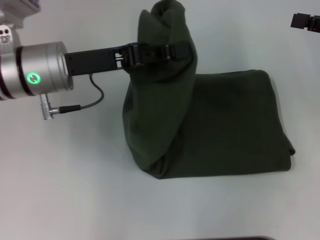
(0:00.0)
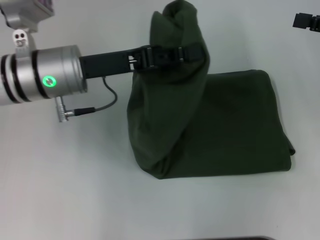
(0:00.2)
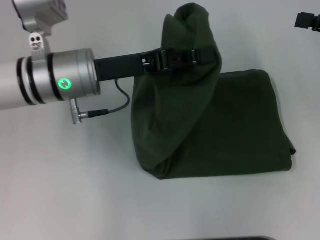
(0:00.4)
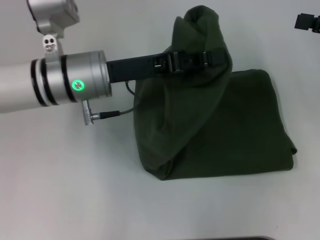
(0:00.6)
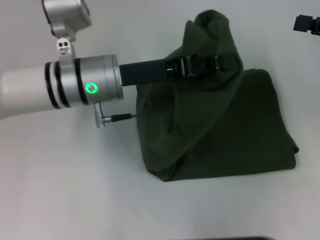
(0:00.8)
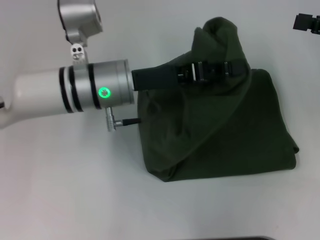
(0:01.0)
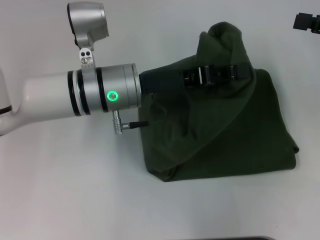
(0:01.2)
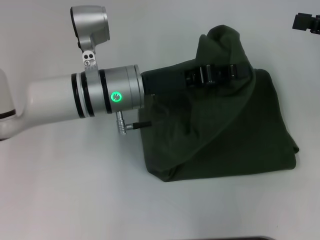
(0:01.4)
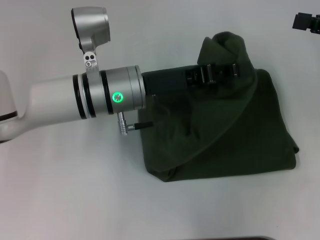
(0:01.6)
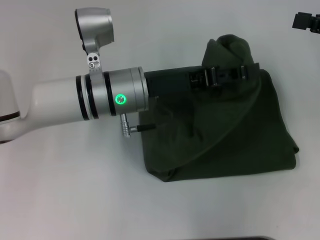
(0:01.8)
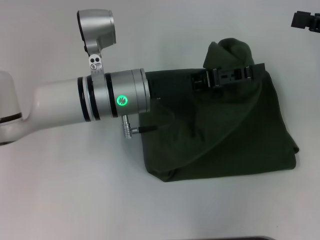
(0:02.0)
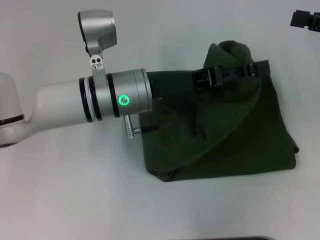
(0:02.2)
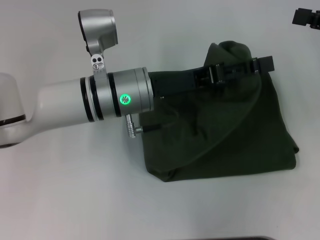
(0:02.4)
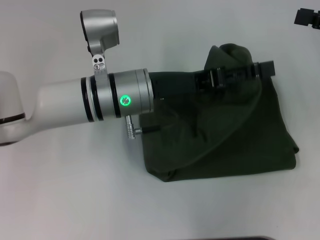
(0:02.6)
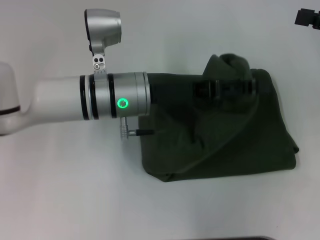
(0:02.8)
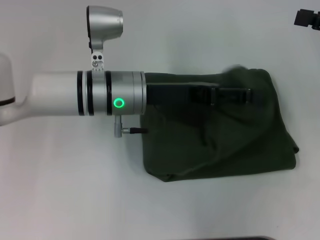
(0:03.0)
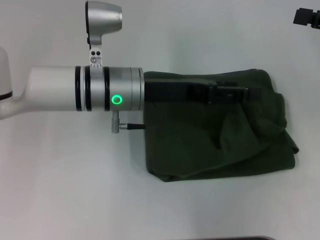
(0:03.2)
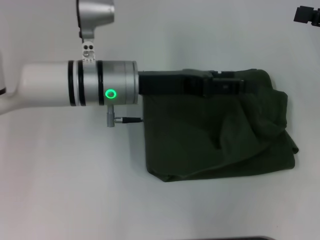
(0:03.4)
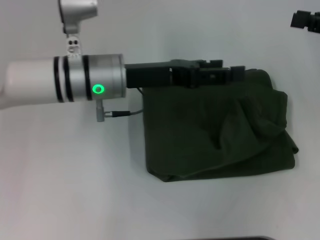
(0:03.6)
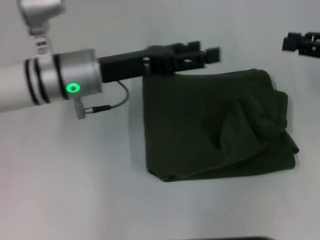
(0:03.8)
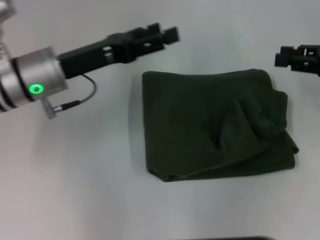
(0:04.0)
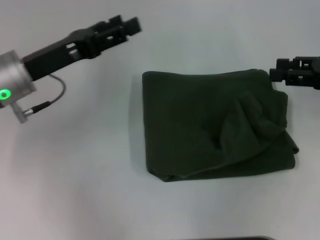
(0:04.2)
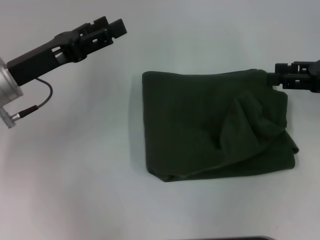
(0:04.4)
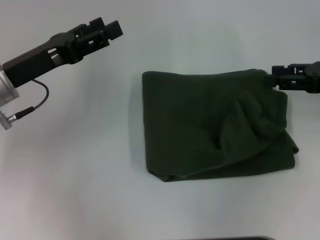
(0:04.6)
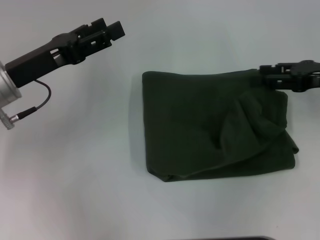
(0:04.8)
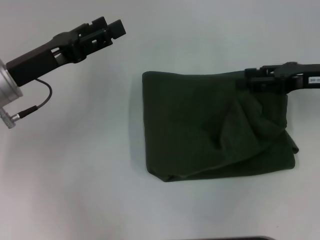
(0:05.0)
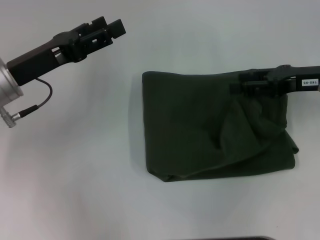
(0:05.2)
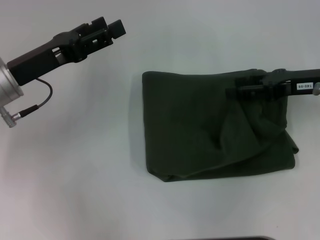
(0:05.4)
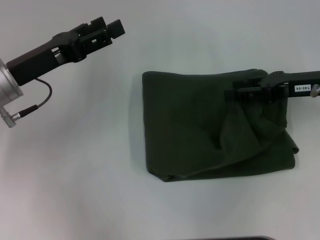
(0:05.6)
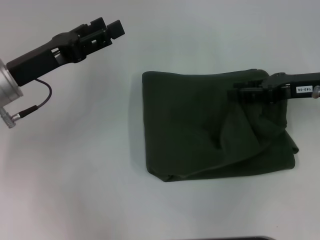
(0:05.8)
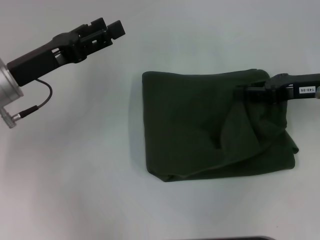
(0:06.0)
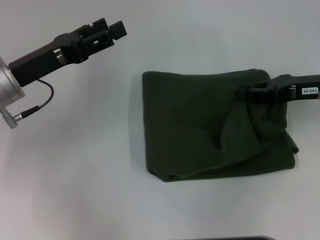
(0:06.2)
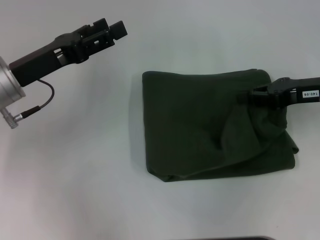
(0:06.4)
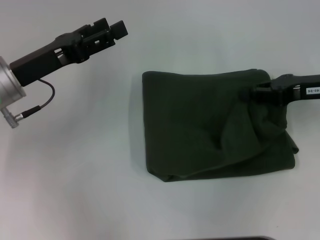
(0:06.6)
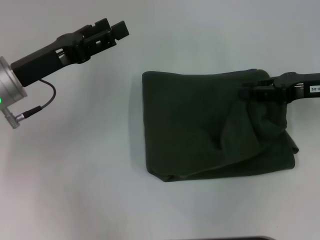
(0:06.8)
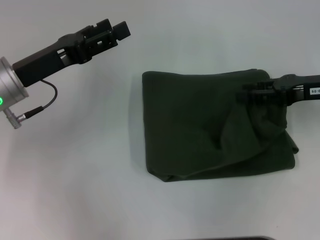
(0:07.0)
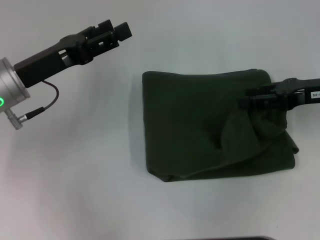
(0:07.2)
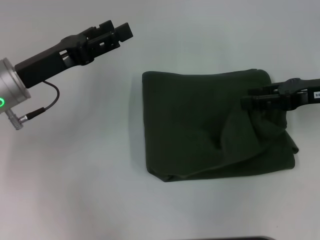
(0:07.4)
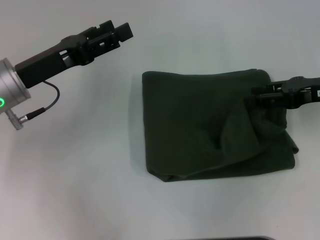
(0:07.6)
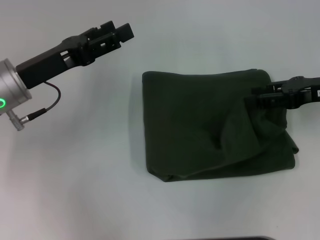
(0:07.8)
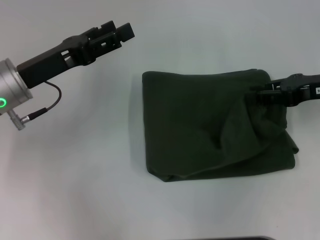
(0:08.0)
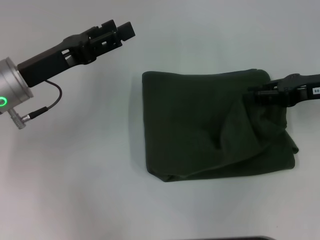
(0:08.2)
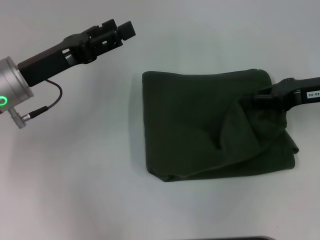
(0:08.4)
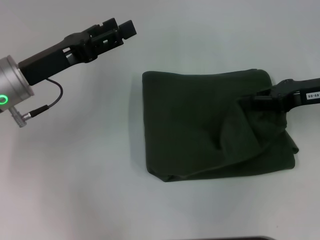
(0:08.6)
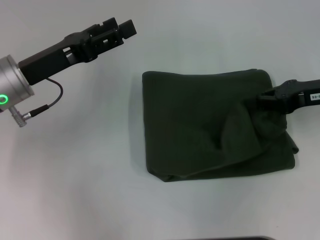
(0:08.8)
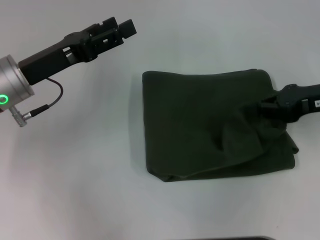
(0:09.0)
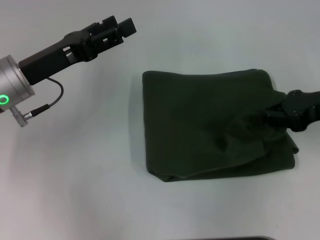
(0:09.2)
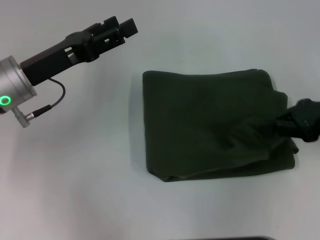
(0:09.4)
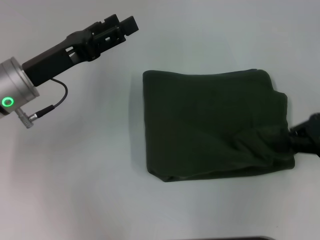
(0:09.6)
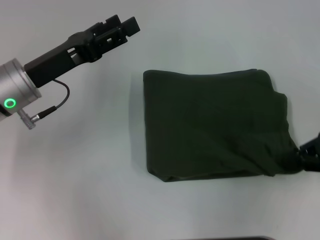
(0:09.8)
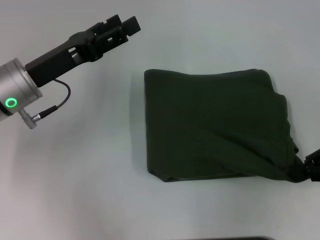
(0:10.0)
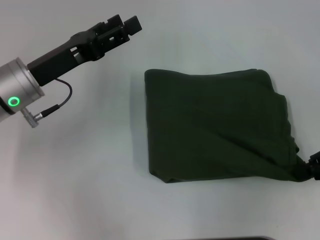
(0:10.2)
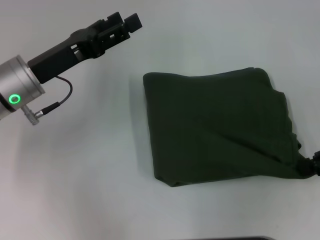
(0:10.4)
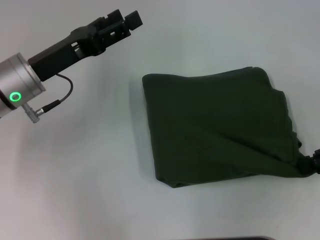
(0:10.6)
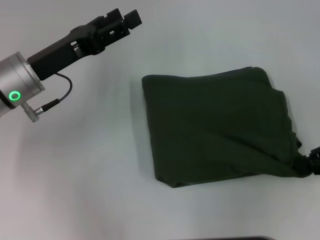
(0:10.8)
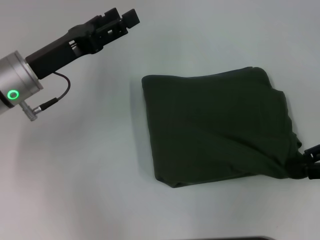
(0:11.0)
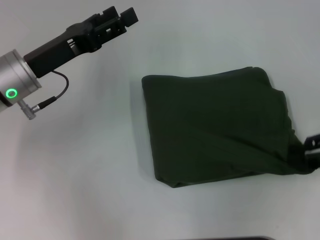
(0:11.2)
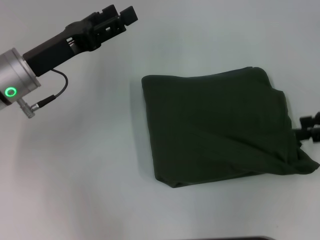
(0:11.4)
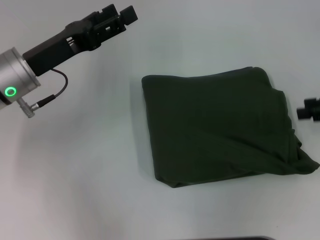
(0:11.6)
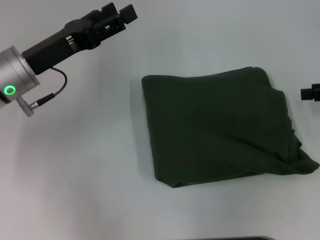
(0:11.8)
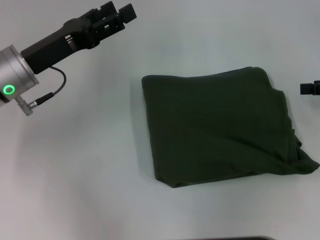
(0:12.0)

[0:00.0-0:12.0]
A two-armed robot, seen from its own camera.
Step, 0:00.0 to 0:03.0: Fold the clothes with your left hand.
0:00.0 to 0:01.6: The left gripper moves to the right, about 10 cm.
0:01.6 to 0:03.0: The left gripper opens up.
0:03.0 to 0:04.4: The left gripper heads to the left, covering some 15 cm.
0:04.4 to 0:06.0: The right gripper travels to the left by some 5 cm.
0:06.0 to 0:07.6: The grippers move only a little.
0:07.6 to 0:09.0: The right gripper closes.
0:09.0 to 0:10.4: The right gripper goes some 10 cm backward and to the right.
0:10.4 to 0:12.0: The right gripper heads forward, covering about 5 cm, and opens its fingers.

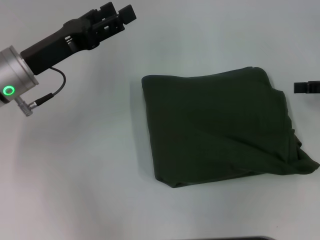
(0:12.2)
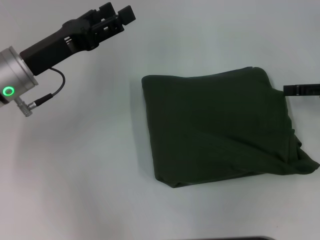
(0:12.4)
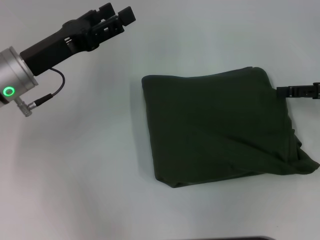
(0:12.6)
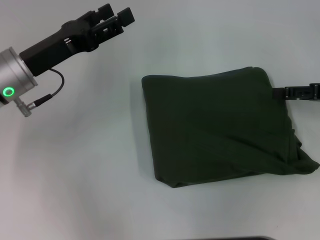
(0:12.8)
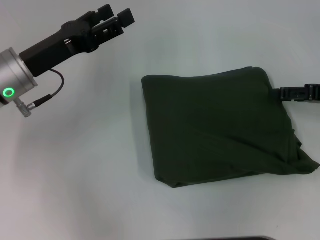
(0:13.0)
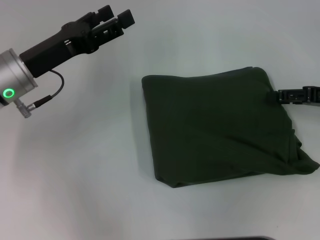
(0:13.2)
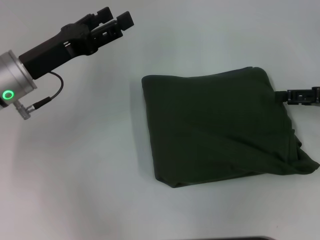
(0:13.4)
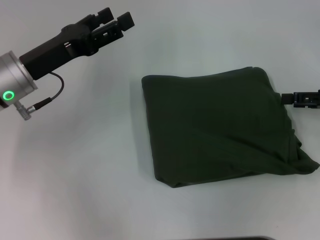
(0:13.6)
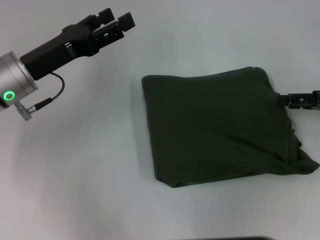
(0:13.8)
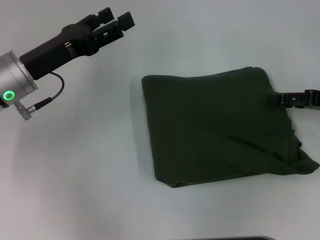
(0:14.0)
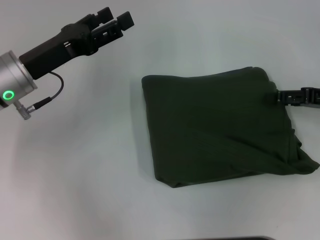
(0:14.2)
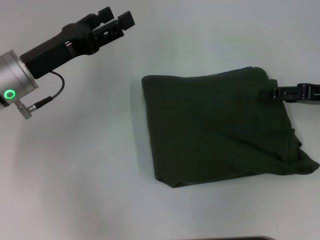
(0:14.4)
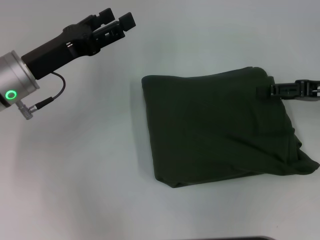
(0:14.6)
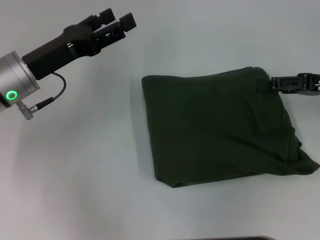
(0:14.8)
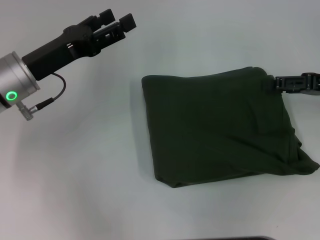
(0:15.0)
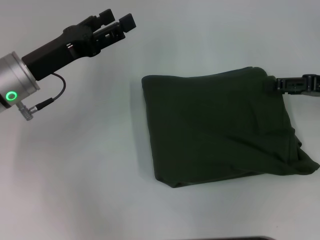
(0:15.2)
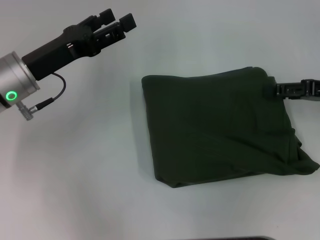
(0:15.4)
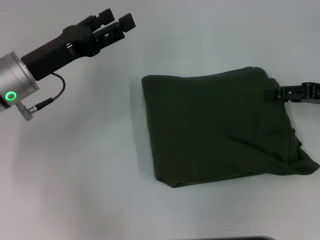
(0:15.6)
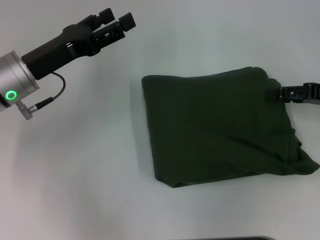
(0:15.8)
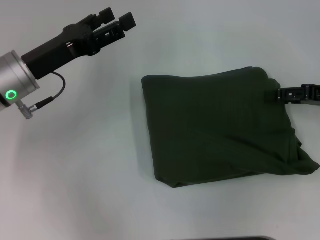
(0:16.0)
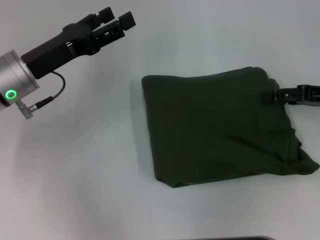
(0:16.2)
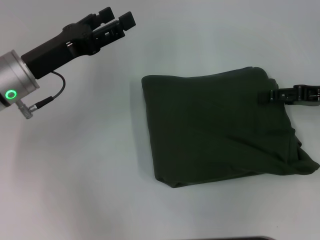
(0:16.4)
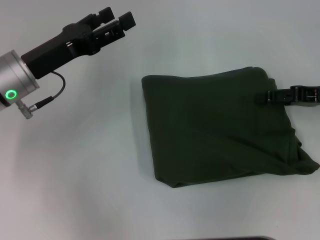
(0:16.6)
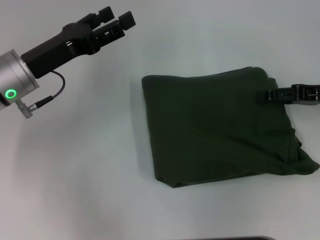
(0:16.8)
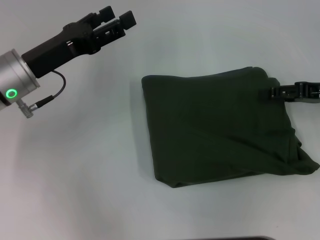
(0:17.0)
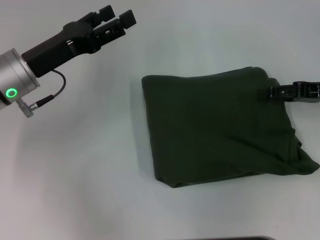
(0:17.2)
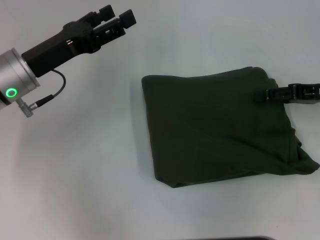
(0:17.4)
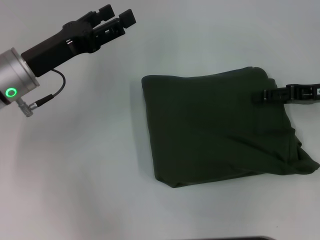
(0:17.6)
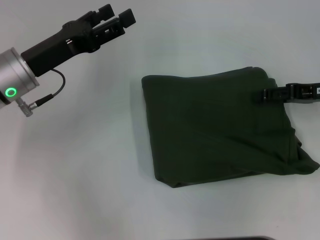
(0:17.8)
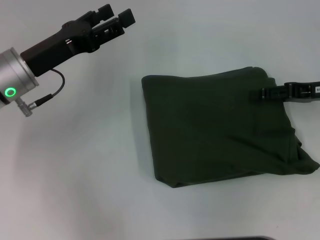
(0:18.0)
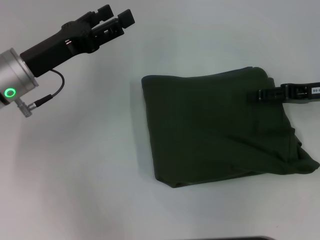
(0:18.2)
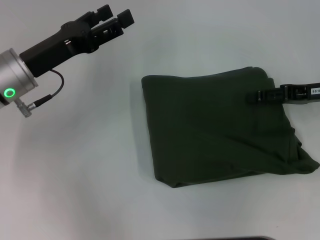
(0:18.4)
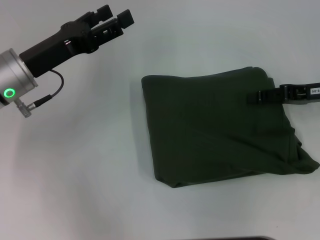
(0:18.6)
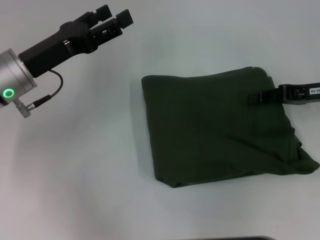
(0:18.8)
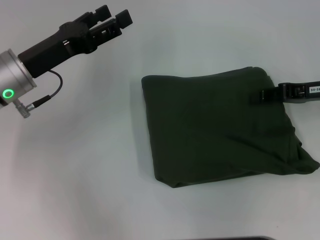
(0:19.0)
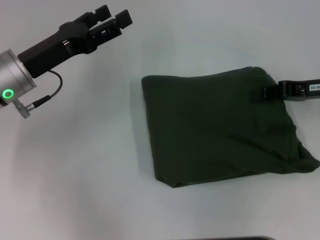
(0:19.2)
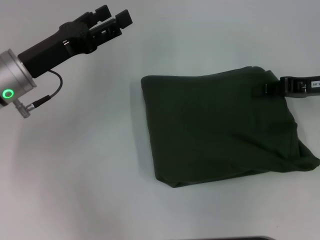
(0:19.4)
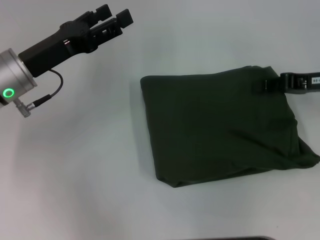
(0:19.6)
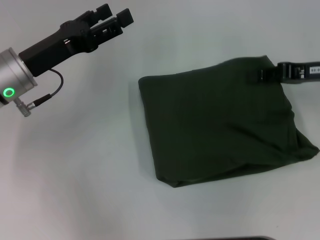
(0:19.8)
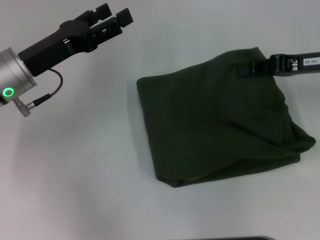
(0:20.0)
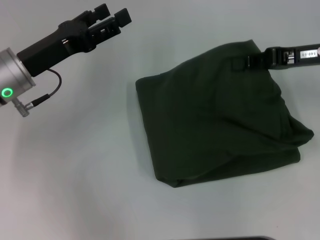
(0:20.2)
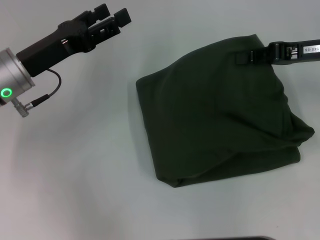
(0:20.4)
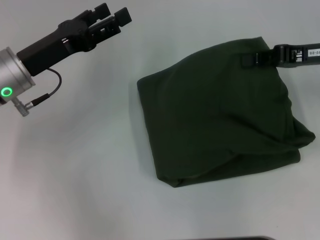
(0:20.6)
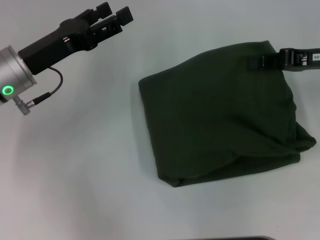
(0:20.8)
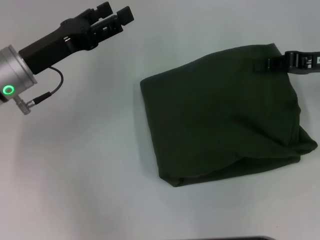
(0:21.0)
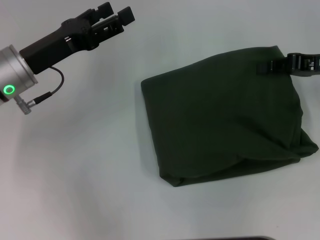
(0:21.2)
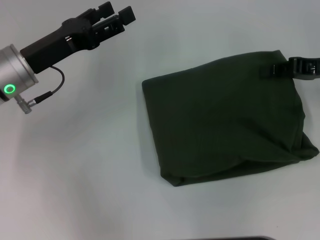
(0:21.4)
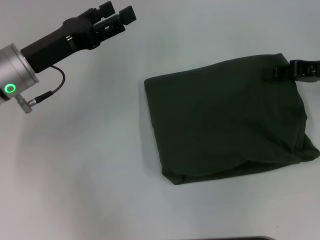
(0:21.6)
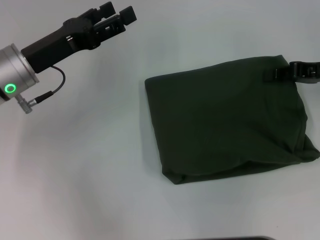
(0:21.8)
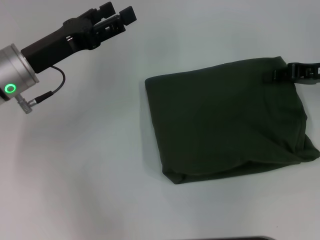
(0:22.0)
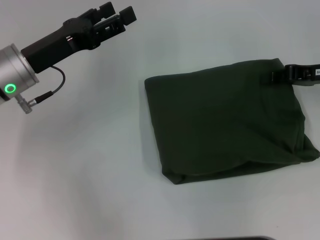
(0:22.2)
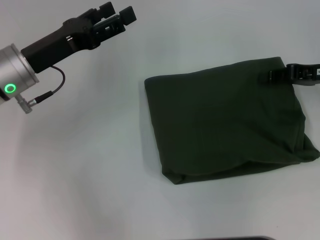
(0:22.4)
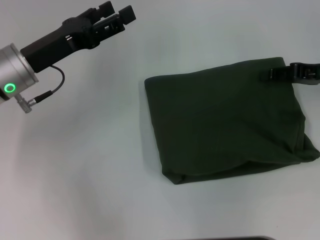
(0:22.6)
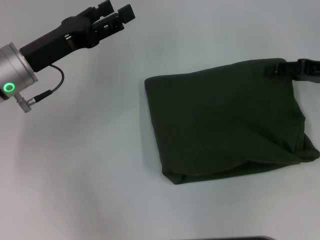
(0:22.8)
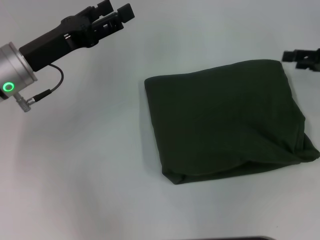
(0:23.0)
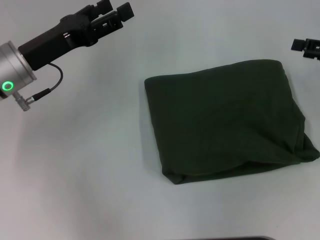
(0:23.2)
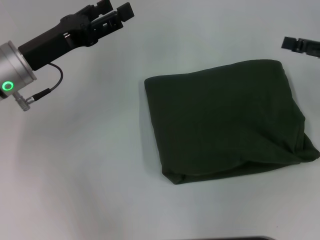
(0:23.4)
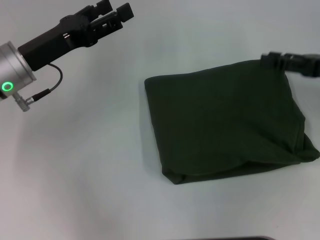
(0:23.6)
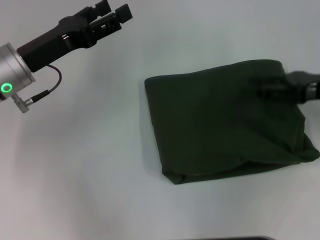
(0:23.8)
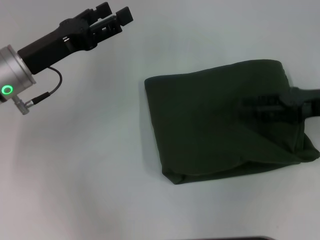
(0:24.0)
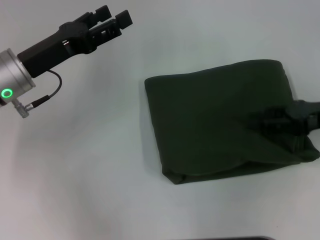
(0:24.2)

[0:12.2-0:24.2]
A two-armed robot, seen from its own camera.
0:12.2 to 0:16.6: There are only small adjustments of the grippers.
0:16.6 to 0:18.2: The grippers stay close to where they were, moving slightly.
0:18.2 to 0:19.8: The right gripper closes up.
0:19.8 to 0:22.6: The grippers stay close to where they were, moving slightly.
0:22.6 to 0:24.2: The right gripper moves backward, approximately 5 cm.
